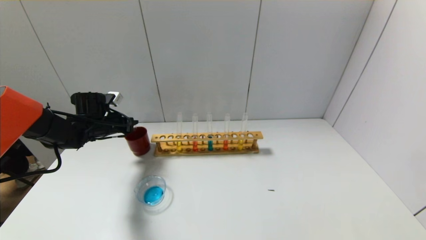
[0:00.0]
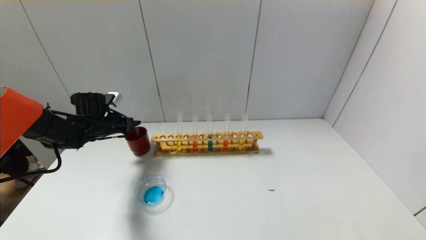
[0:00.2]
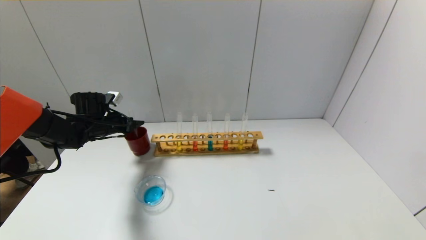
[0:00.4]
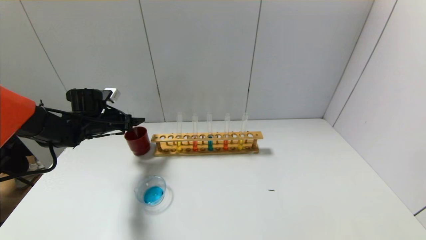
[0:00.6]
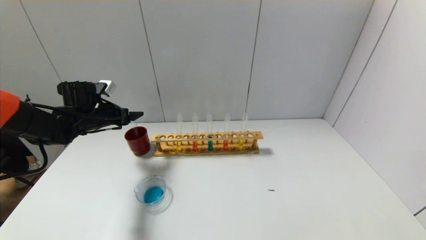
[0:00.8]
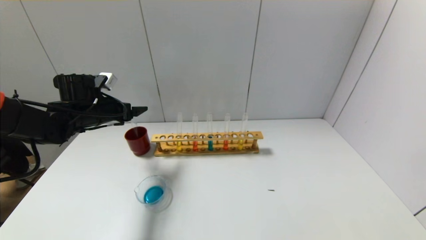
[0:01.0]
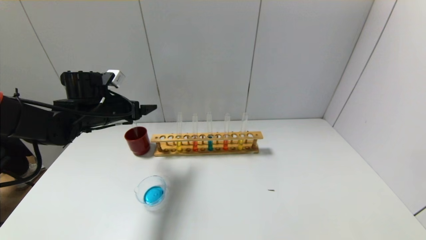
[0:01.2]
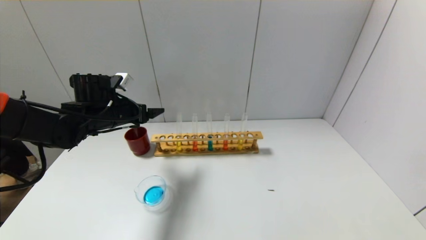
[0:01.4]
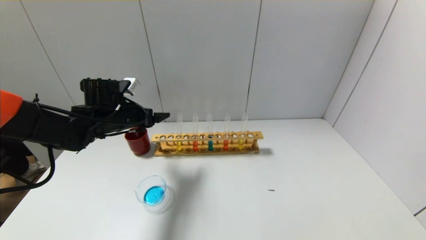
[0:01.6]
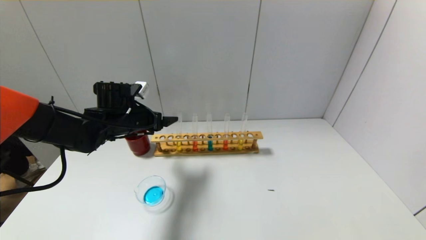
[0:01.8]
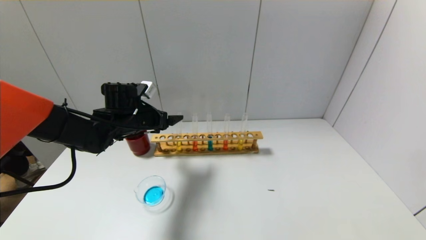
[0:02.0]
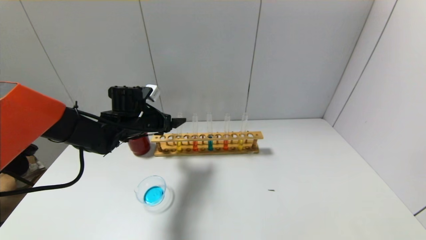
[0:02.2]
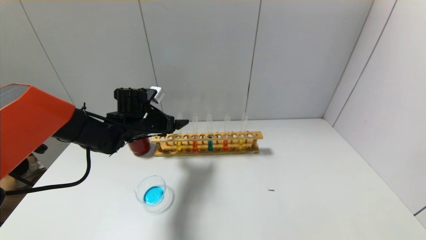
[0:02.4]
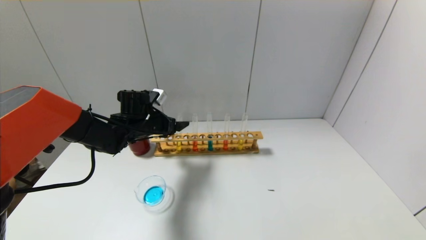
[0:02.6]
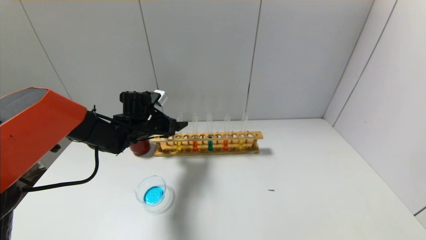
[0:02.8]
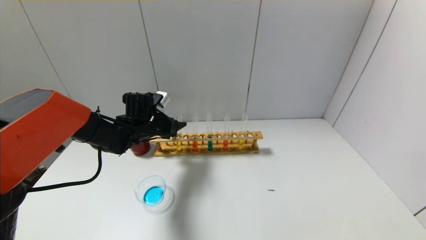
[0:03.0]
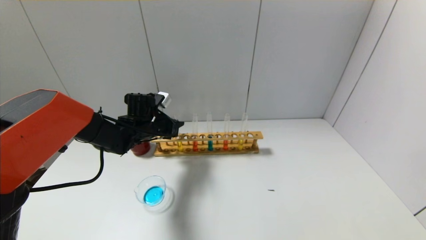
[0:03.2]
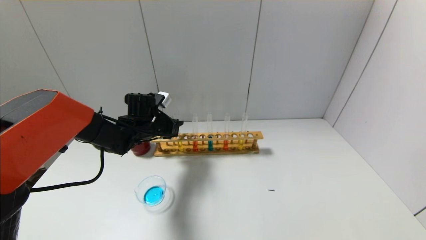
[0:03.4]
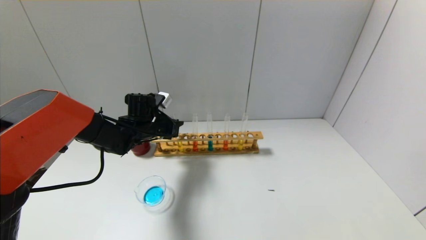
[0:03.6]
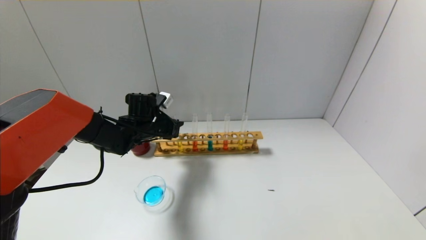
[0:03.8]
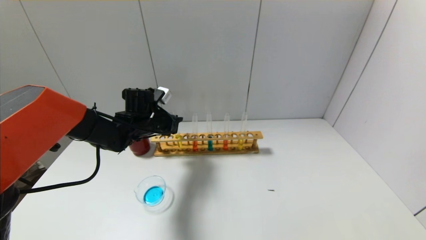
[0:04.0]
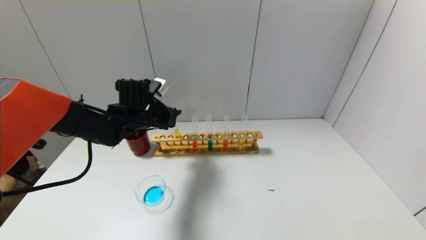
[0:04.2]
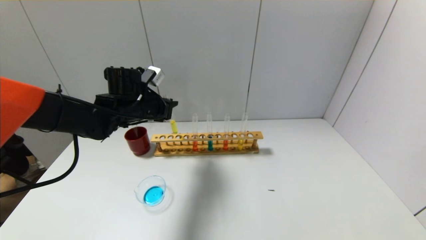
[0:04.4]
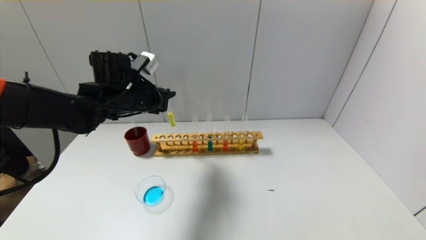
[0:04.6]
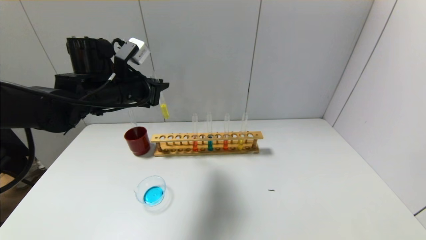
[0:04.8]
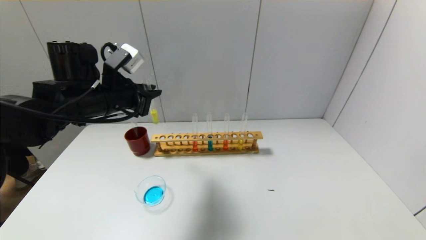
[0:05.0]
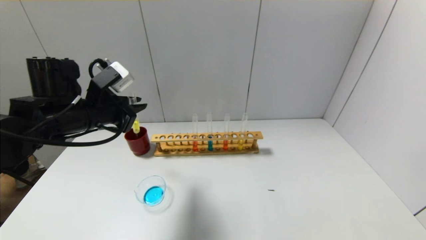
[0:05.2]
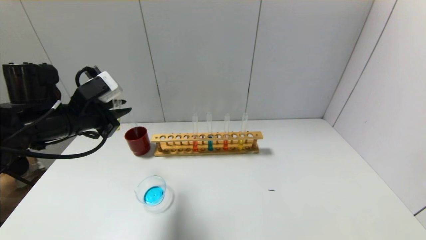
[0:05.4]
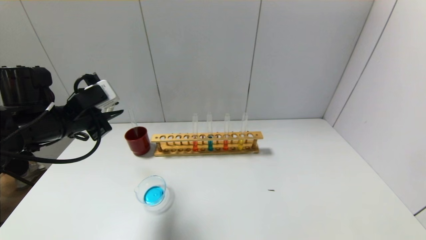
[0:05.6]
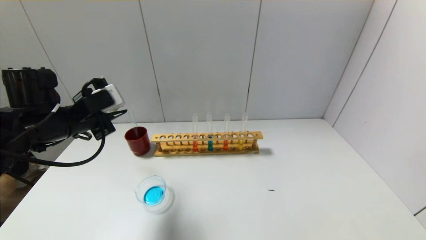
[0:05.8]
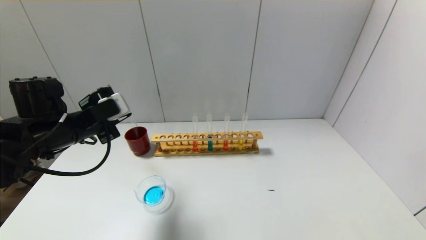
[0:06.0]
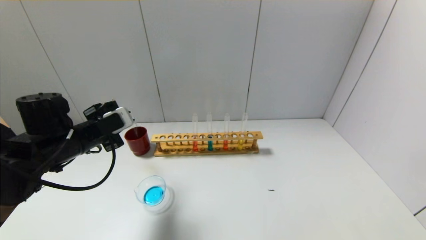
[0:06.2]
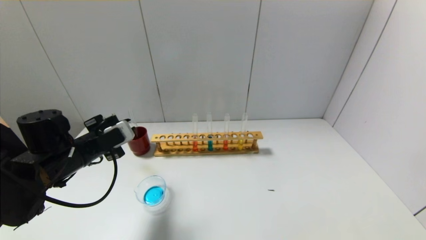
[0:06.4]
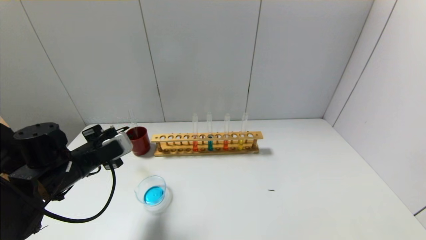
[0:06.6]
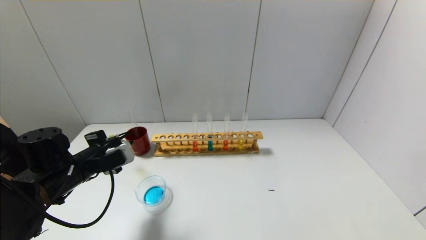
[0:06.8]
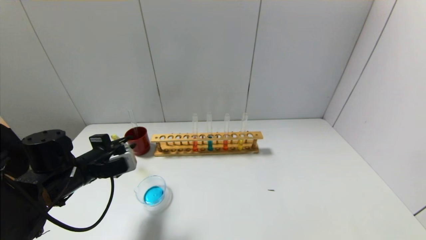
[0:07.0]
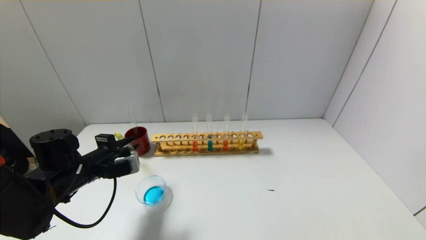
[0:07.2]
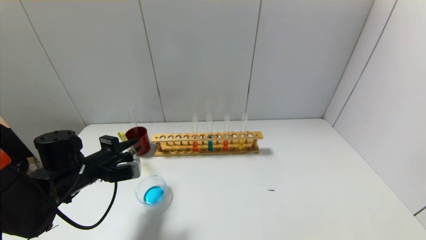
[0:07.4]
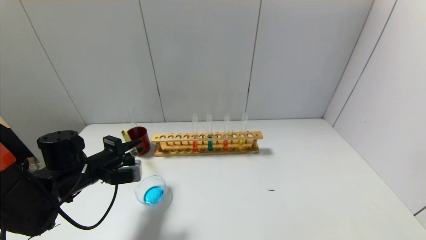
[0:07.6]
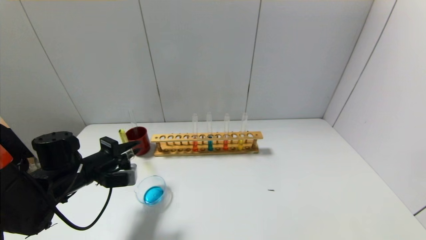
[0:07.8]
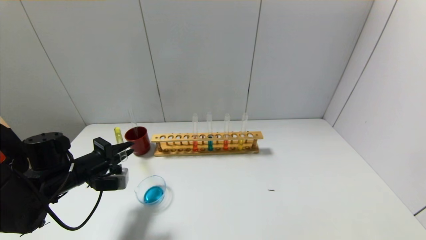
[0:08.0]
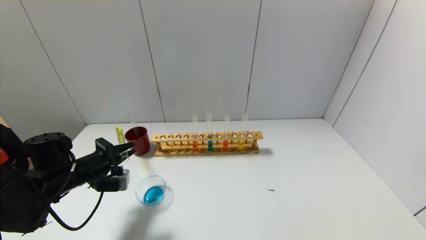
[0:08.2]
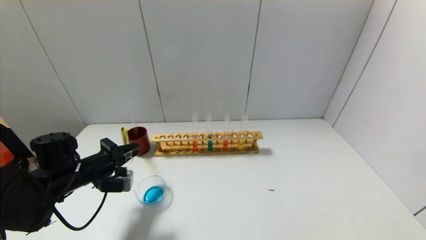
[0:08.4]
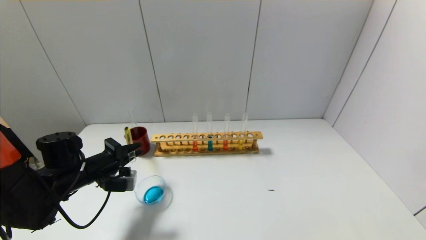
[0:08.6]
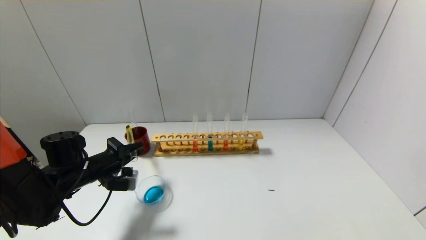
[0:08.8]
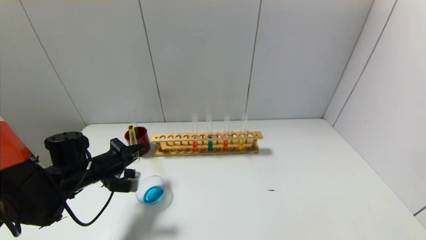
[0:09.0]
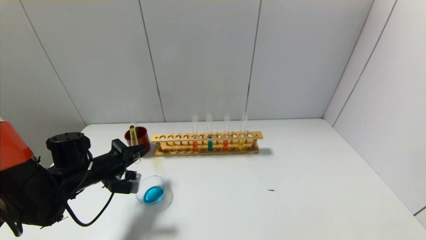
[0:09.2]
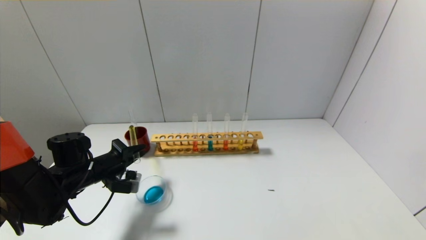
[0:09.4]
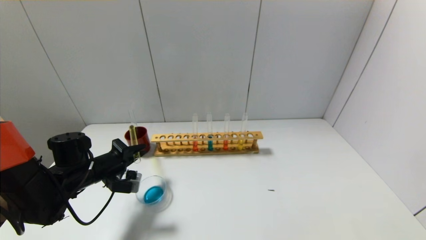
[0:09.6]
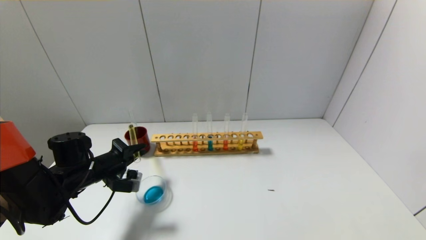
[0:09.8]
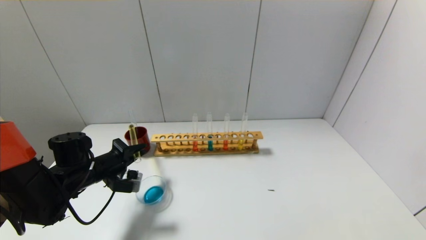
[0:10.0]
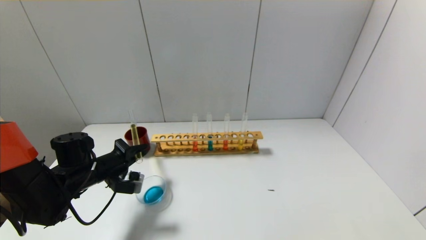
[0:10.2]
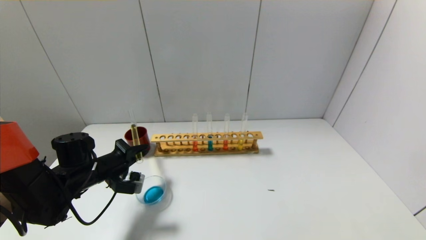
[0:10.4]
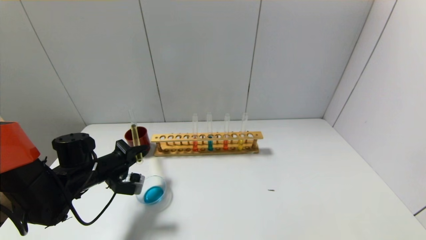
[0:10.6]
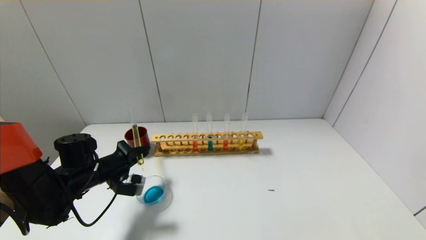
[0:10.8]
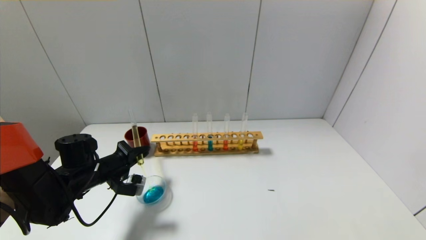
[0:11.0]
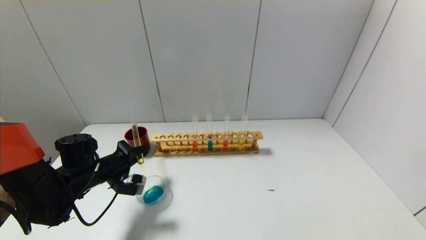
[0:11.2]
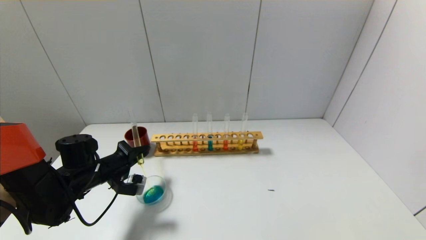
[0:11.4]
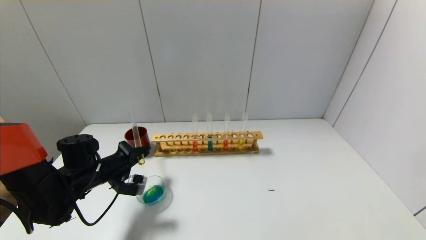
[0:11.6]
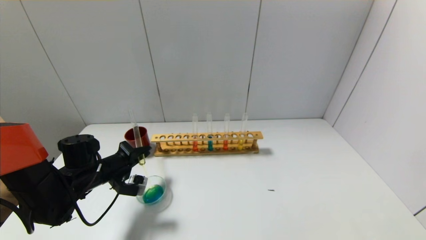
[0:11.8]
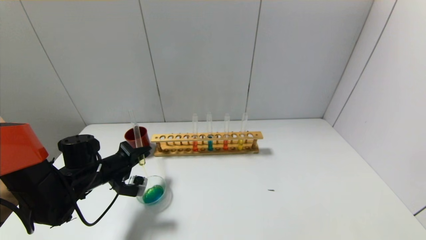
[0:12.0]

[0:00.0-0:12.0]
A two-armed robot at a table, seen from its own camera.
Step, 0:00.4 to 0:03.2: Grasp the yellow reagent with the left gripper.
0:00.0 to 0:01.6: The left gripper moves to the right, upward and backward, about 10 cm, and opens.
0:01.6 to 0:03.0: The left gripper goes approximately 5 cm downward, and closes its fingers.
0:03.0 to 0:04.4: The left gripper moves upward, some 10 cm, and closes.
0:04.4 to 0:06.0: The left gripper shifts roughly 15 cm backward and to the left.
0:06.0 to 0:07.6: The left gripper shifts about 10 cm downward.
0:07.6 to 0:09.0: The grippers make only small movements.
0:09.0 to 0:10.4: Neither gripper changes place.
0:10.4 to 0:12.0: The two grippers keep their place.

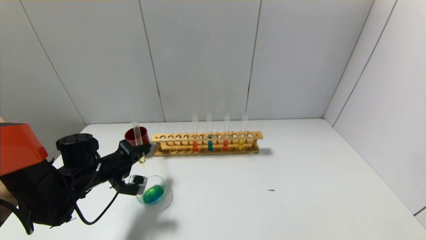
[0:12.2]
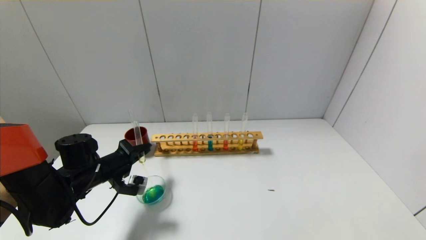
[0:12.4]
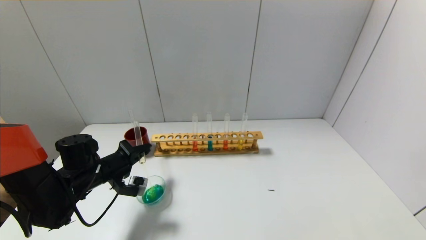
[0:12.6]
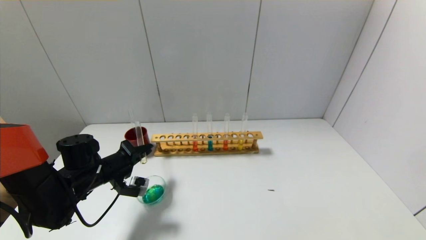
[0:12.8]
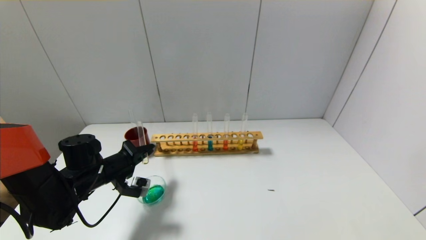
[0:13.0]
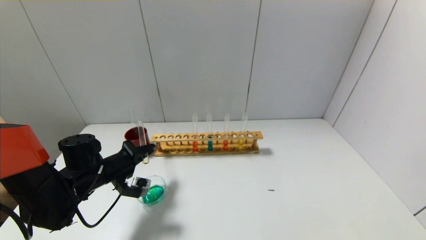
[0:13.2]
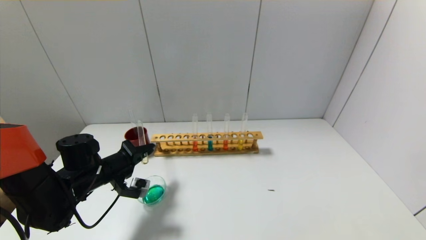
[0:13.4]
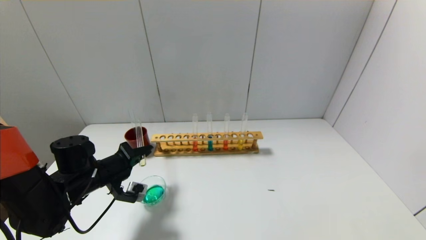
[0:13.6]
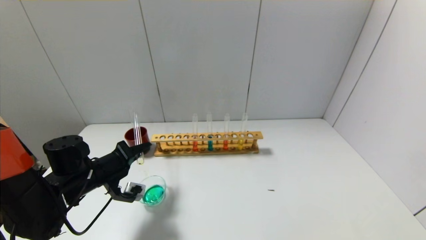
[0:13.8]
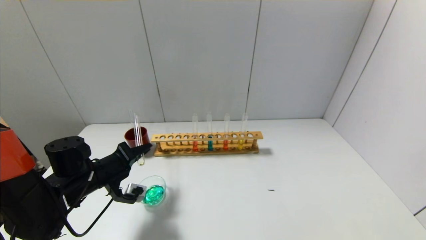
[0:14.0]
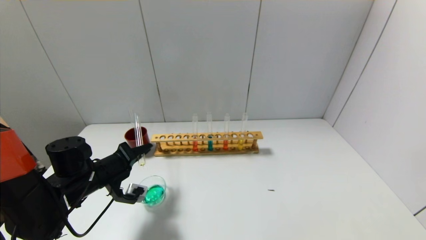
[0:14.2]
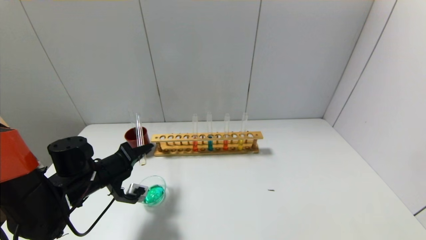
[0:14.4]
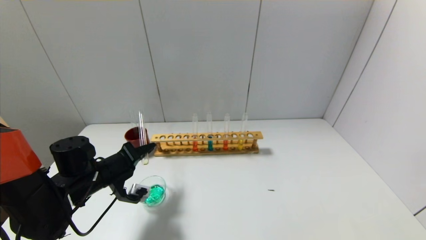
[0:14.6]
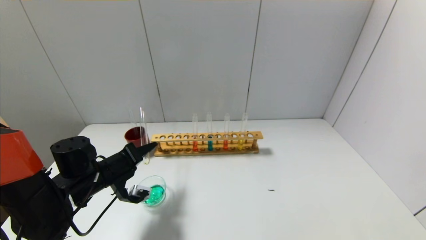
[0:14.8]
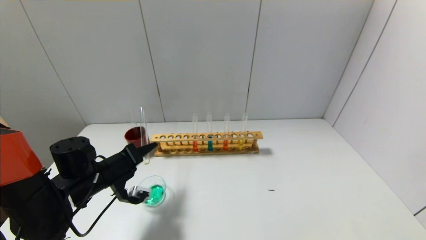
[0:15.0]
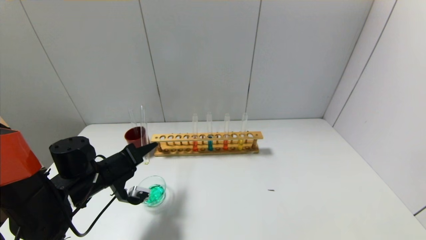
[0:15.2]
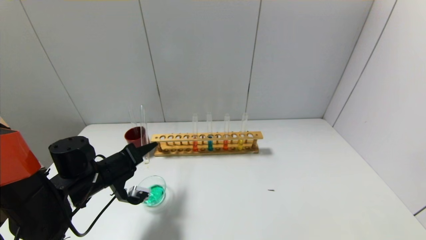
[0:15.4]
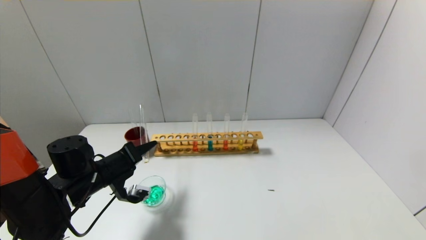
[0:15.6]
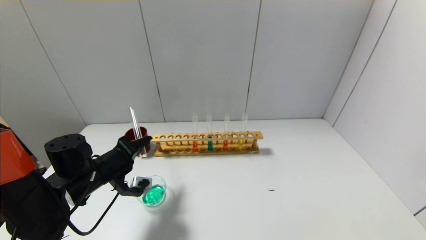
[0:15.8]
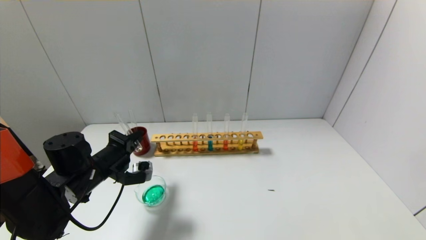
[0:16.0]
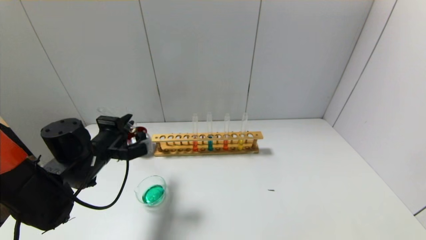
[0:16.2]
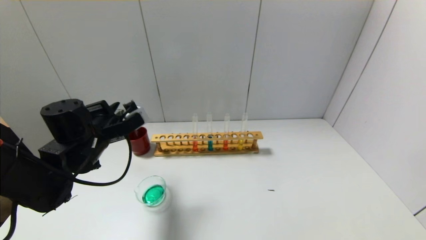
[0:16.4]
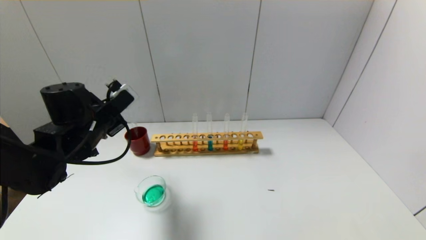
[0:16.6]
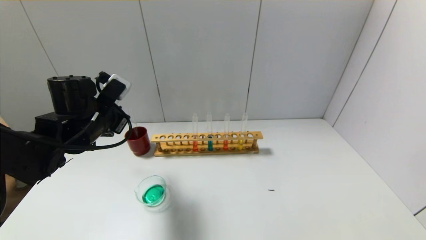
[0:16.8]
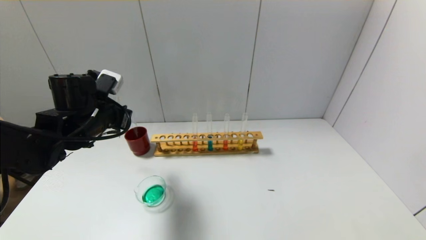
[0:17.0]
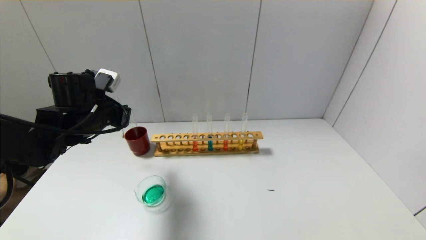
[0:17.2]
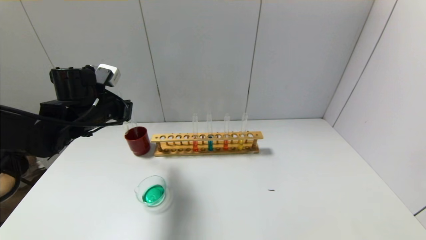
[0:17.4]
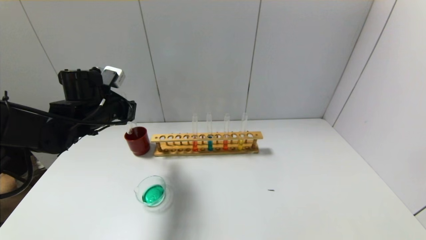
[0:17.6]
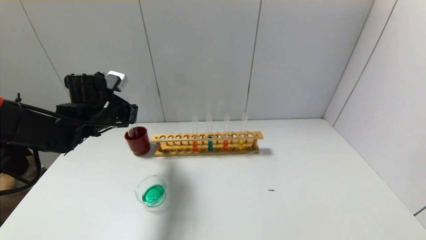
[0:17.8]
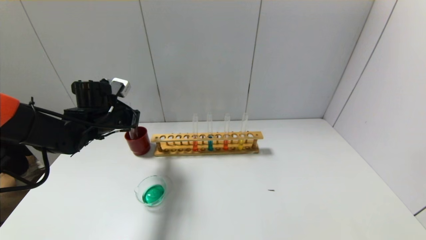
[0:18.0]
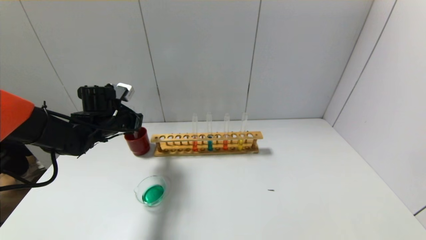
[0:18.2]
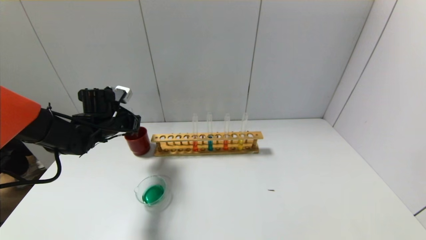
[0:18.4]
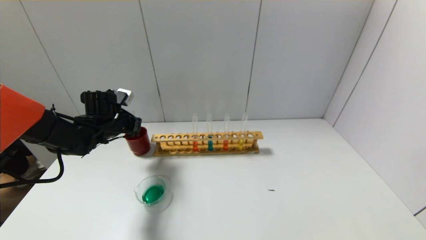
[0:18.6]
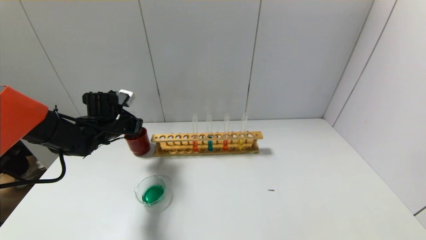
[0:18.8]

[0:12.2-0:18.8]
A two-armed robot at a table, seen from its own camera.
Step, 0:12.2 to 0:16.0: Pour the yellow reagent into the graduated cylinder with the left gripper.
0:12.2 to 0:13.8: The grippers stay close to where they were, moving slightly.
0:13.8 to 0:15.4: The grippers make only small movements.
0:15.4 to 0:17.2: The left gripper heads upward and forward, covering approximately 10 cm.
0:17.2 to 0:18.8: The left gripper travels forward and downward by roughly 10 cm.
